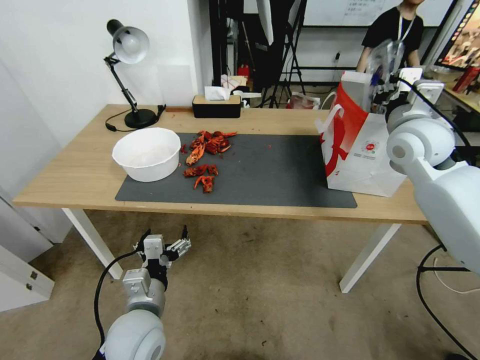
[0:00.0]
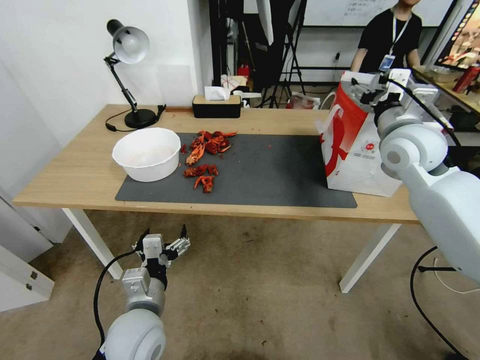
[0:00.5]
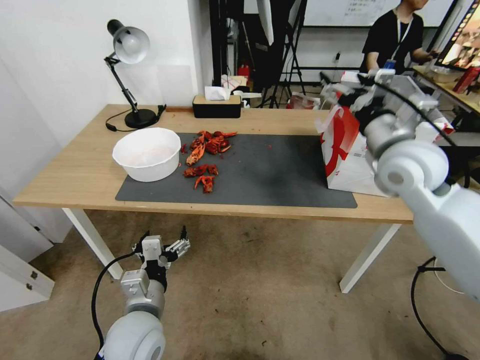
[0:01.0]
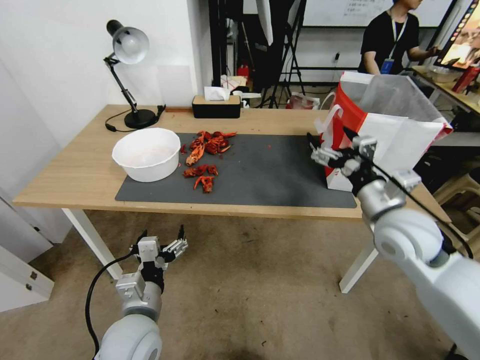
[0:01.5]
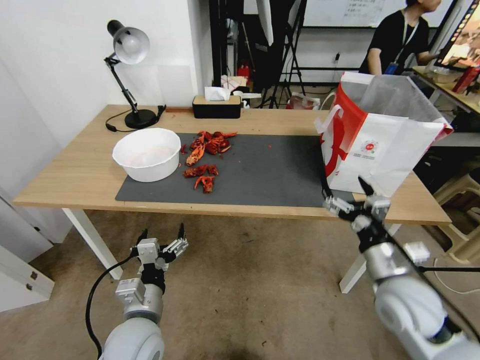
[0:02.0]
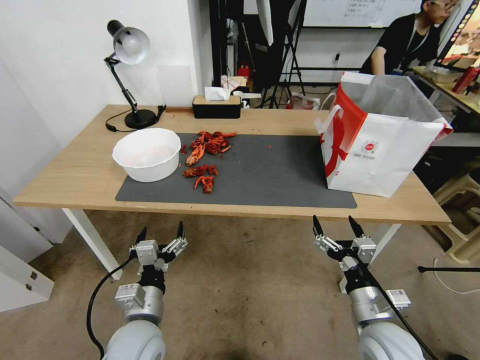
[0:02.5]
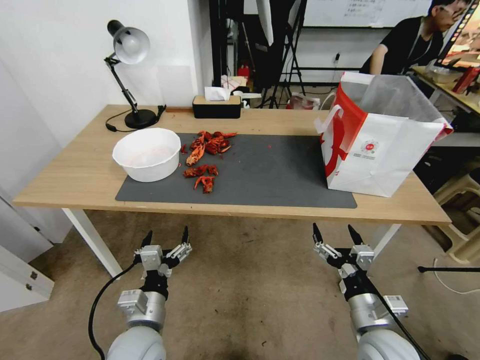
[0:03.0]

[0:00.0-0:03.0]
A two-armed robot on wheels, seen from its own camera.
Task of the whole recording: Close the takeout container lid, then place the container into the takeout bag.
0:00.0 to 0:01.5: The right gripper goes approximately 20 cm backward and downward, and opens up.
0:01.5 to 0:03.0: The right gripper shifts approximately 20 cm downward and backward.
